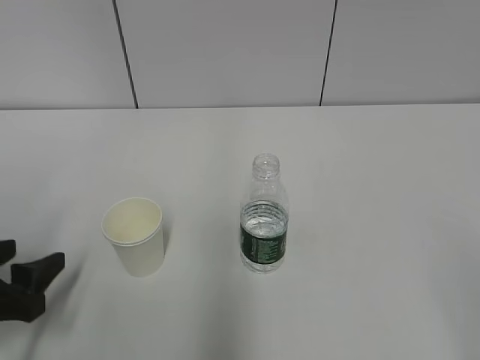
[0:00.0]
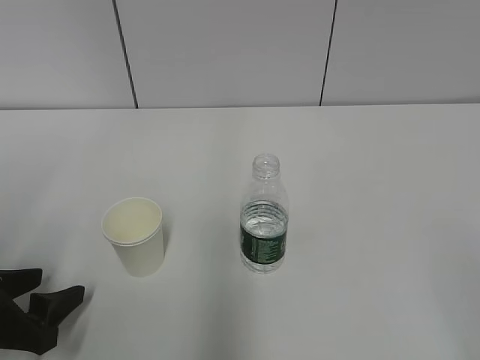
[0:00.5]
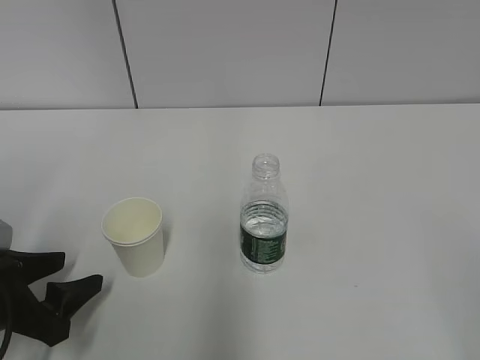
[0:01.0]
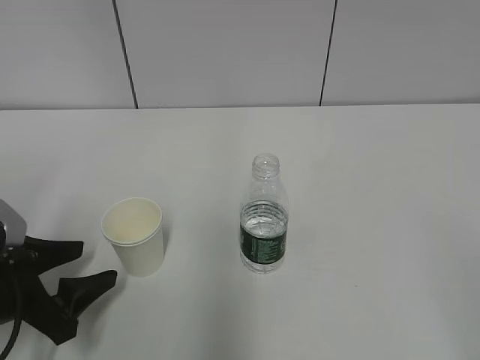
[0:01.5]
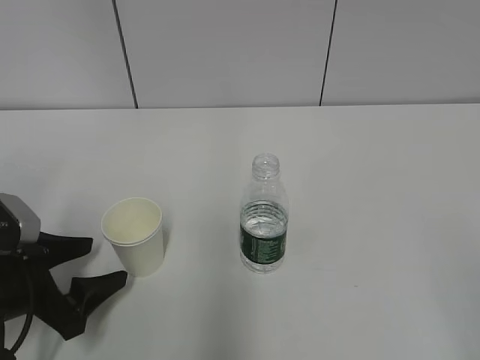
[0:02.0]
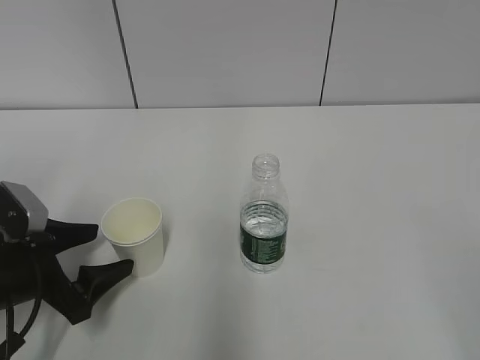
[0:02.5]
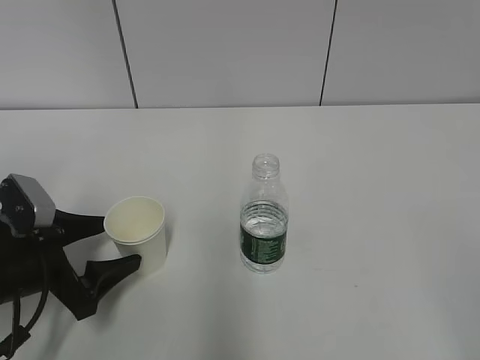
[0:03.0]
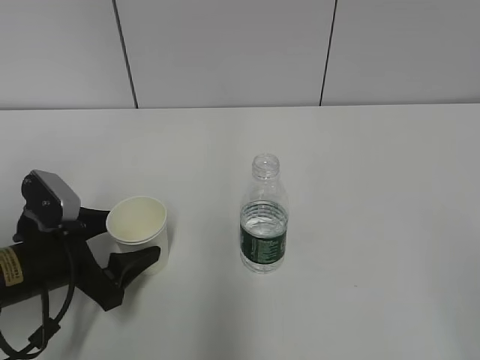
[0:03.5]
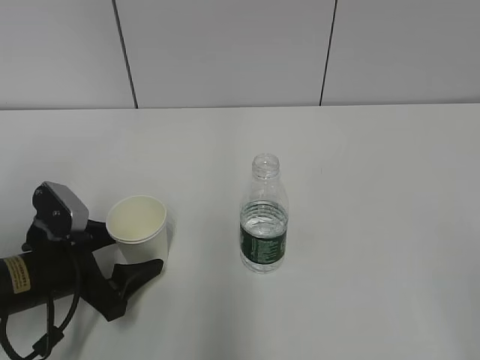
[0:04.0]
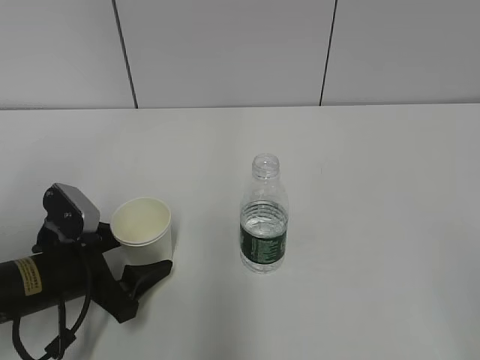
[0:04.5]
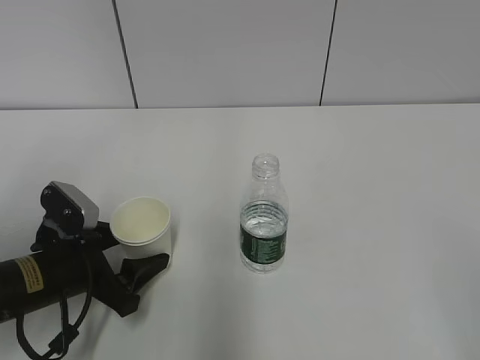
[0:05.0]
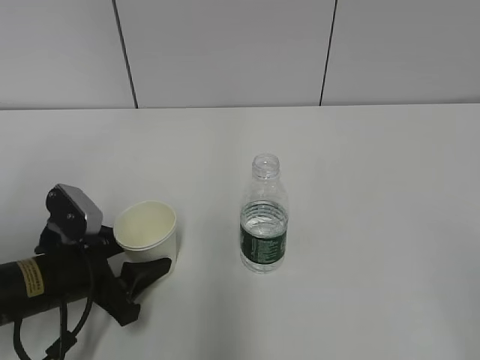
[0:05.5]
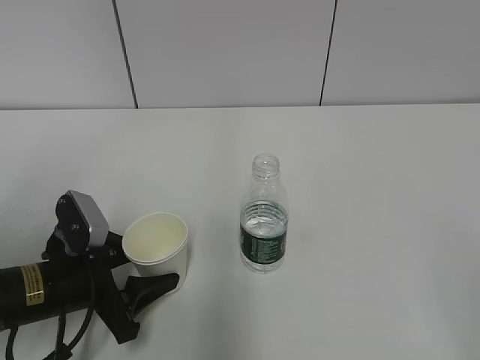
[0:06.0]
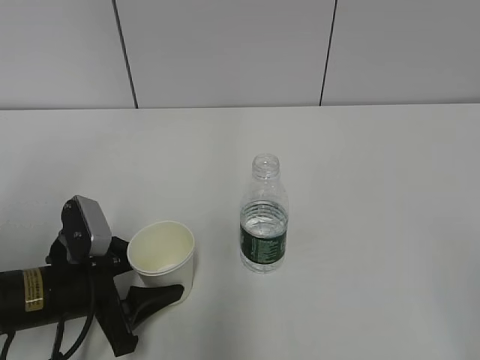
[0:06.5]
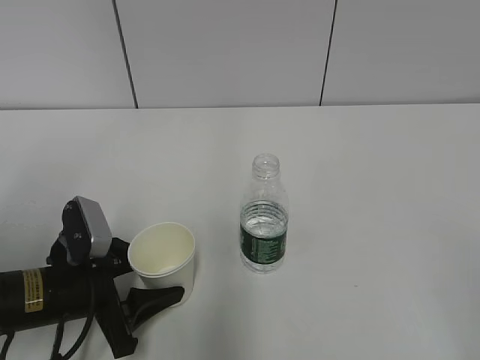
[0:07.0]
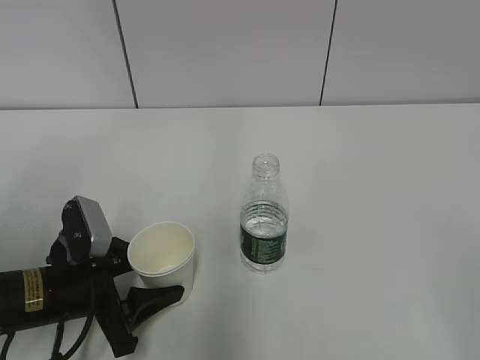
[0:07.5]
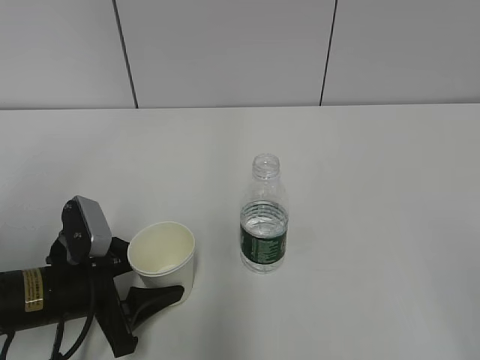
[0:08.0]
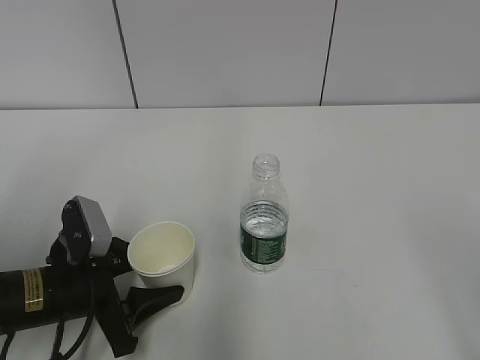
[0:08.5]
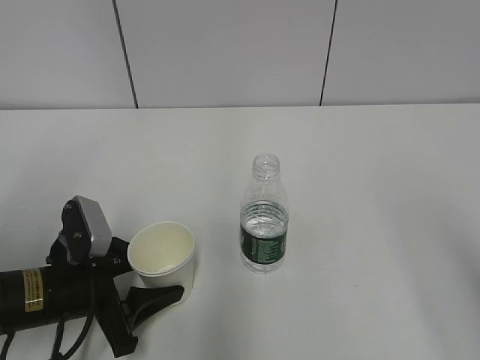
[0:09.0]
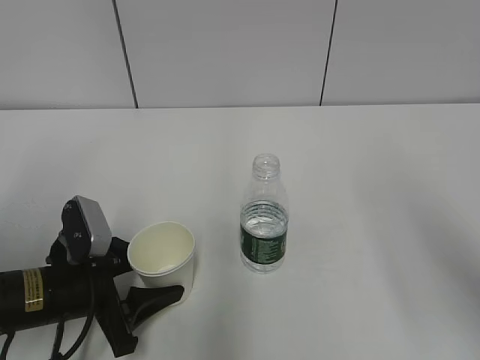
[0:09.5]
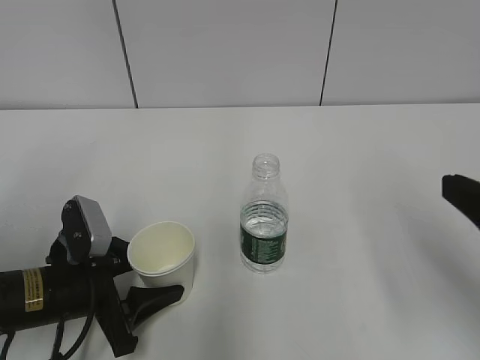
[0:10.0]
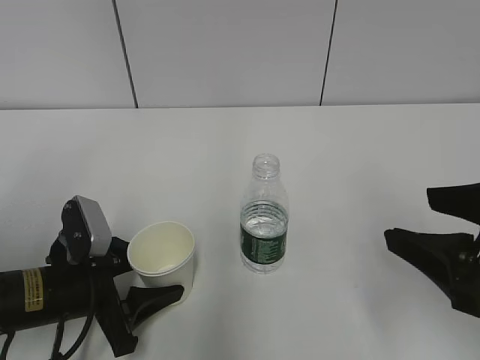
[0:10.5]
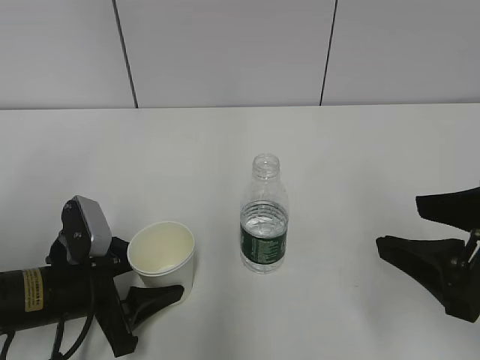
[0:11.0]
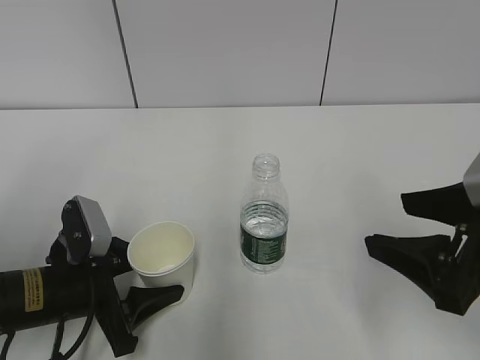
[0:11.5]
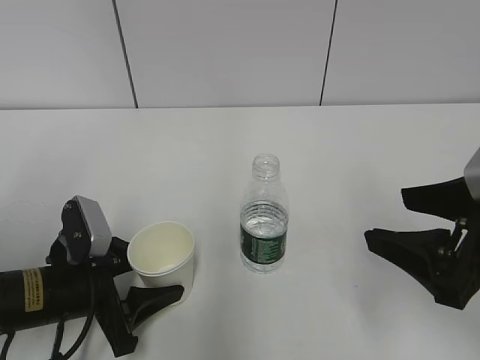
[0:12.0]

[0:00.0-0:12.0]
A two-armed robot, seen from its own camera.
Step, 0:00.0 to 0:03.5: Grab the paper cup with the left hand.
0:00.0 to 0:02.0: The left gripper ends up approximately 5 cm from where it was.
0:02.0 to 0:04.0: The grippers stay close to where they were, moving slightly.
0:04.0 to 0:06.0: The left gripper closes.
0:06.0 to 0:08.0: There are only small adjustments of the grippers.
0:08.0 to 0:10.0: The right gripper is displaced forward by approximately 15 cm.
0:10.0 to 0:12.0: The right gripper shifts by about 5 cm.

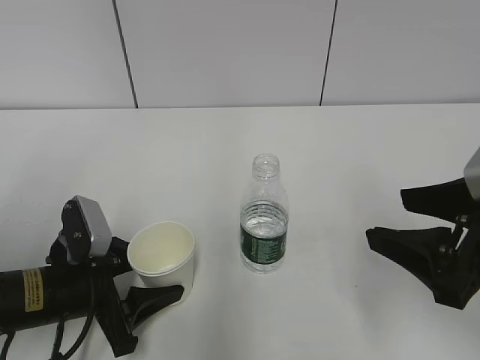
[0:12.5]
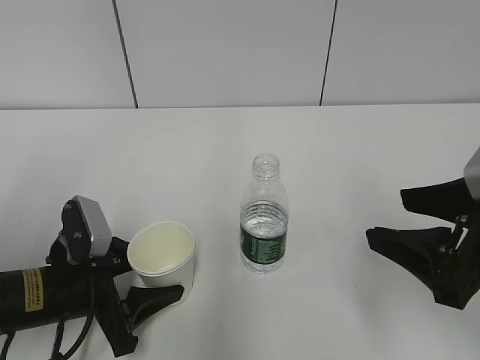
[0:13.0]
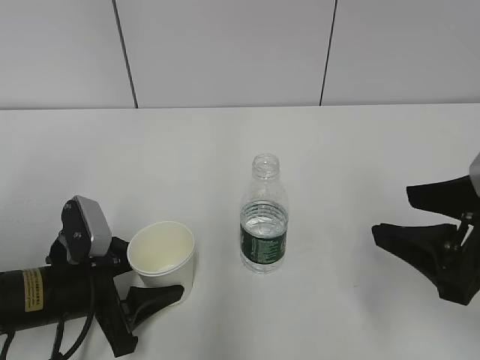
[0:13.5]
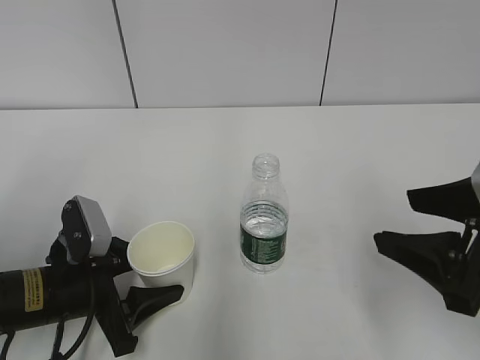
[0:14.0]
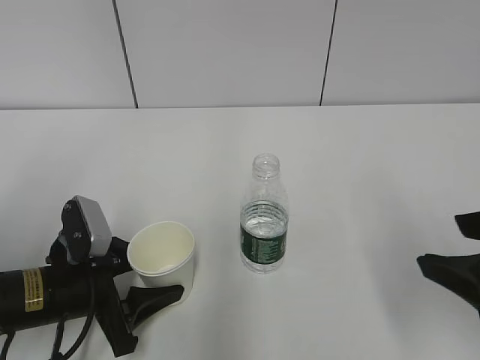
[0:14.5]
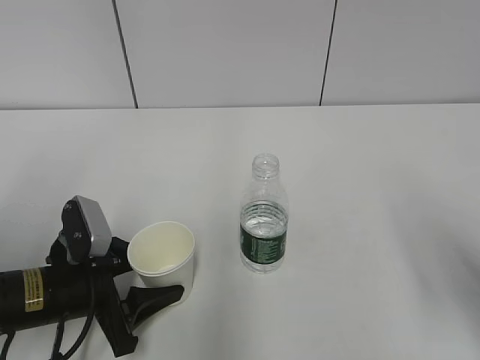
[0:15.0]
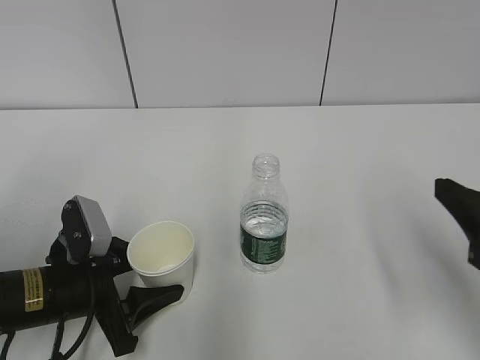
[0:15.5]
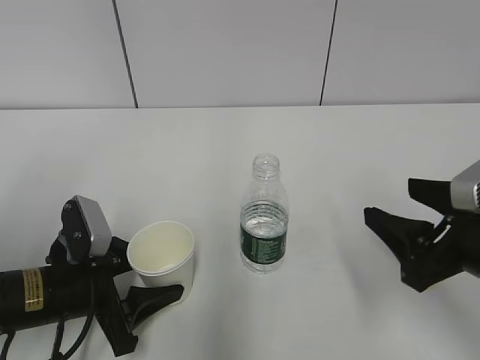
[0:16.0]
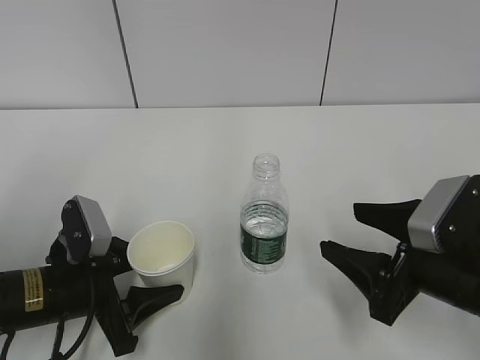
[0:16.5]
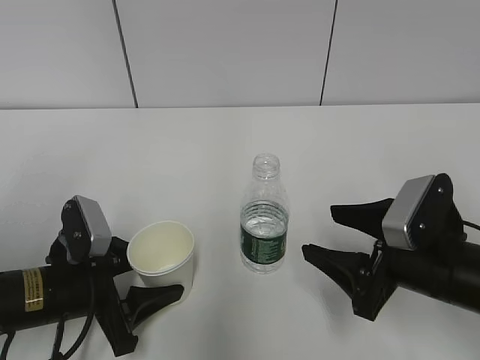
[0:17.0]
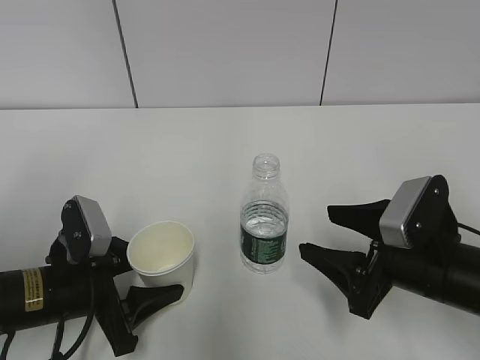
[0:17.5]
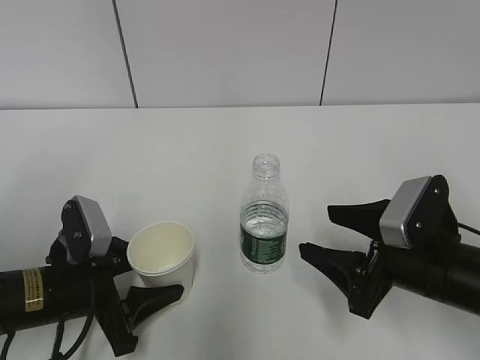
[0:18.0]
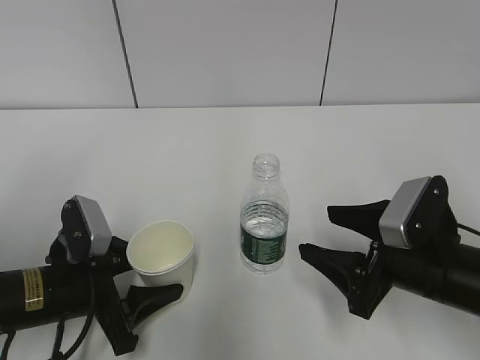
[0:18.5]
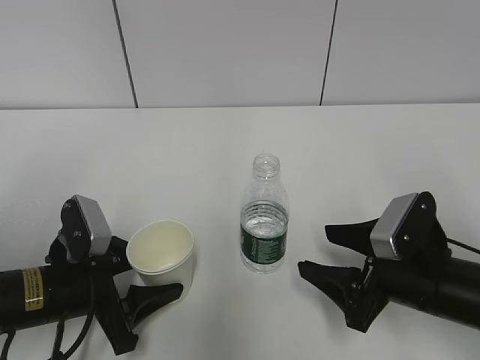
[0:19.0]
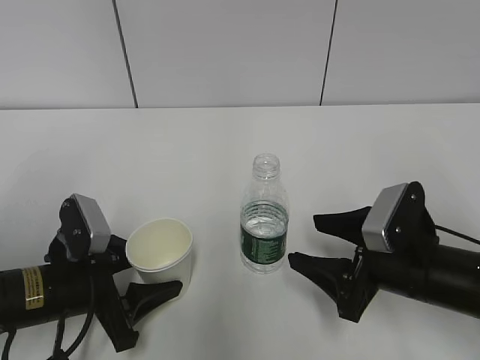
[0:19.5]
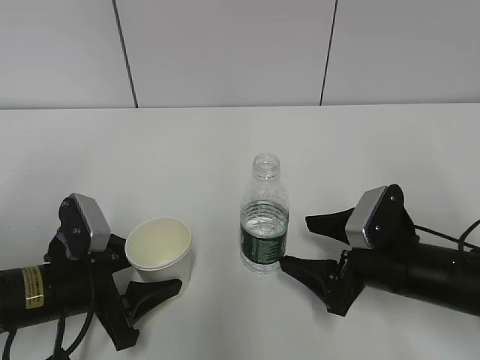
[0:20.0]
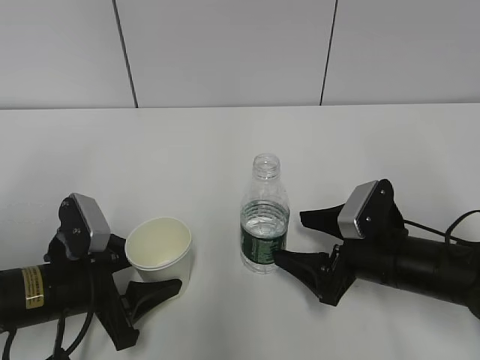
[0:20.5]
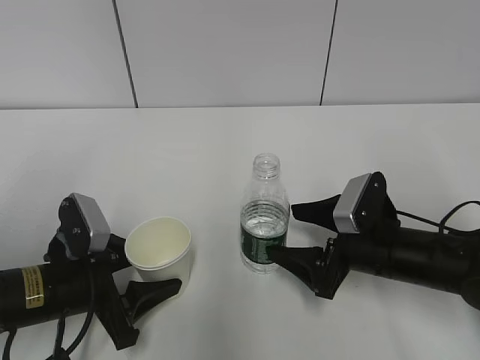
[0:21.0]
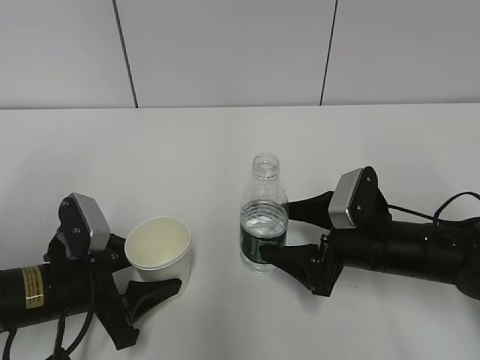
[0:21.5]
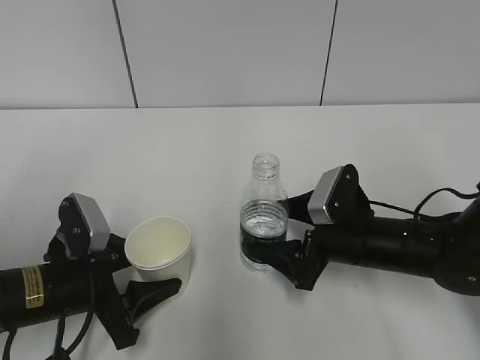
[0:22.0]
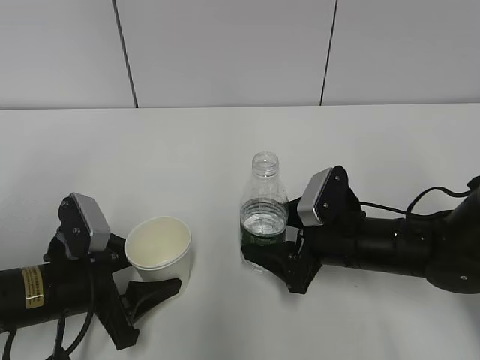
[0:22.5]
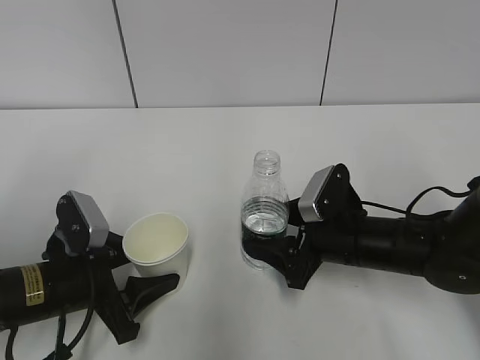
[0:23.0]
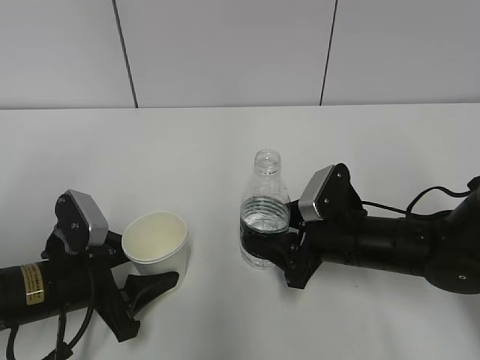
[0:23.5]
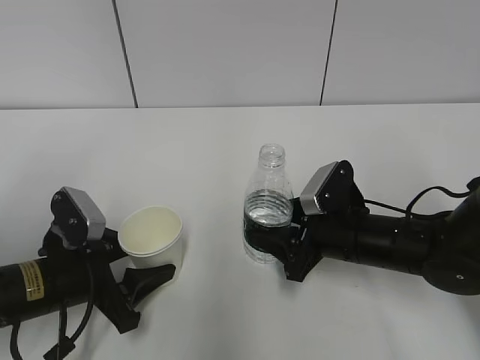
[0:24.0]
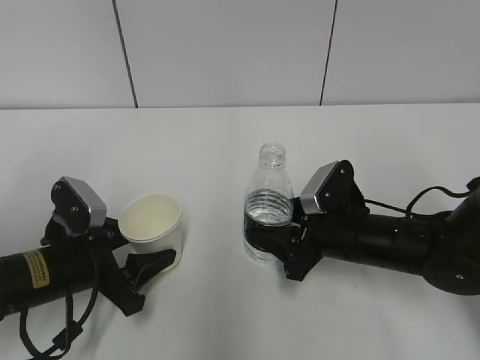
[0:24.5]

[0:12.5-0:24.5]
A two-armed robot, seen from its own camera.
Step, 0:12.5 to 0:18.0: Grab the water bottle with the right hand.
0:12.5 to 0:14.5: There are only small adjustments of the grippers.
0:14.5 to 0:16.5: The right gripper is displaced downward by roughly 10 cm.
0:16.5 to 0:18.5: The grippers stay close to where they were, moving slightly.
0:18.5 to 0:20.5: The right gripper shifts by approximately 5 cm, and opens.
0:20.5 to 0:22.5: The grippers stay close to where they were, moving slightly.
0:22.5 to 0:24.5: The right gripper closes.

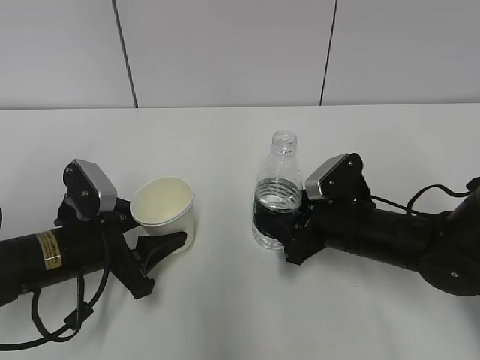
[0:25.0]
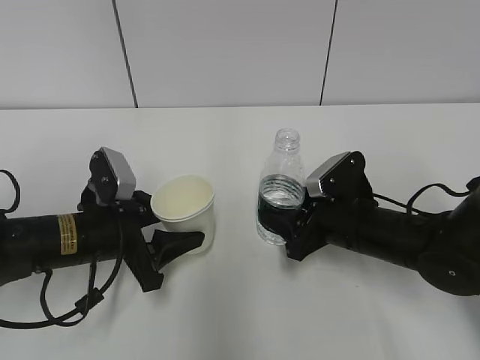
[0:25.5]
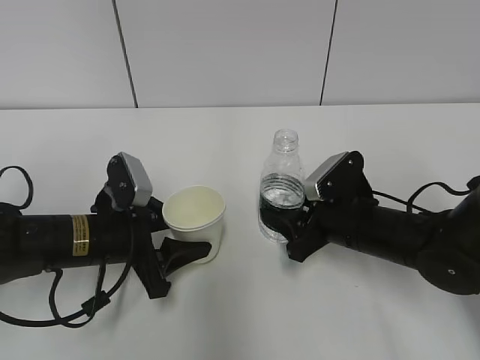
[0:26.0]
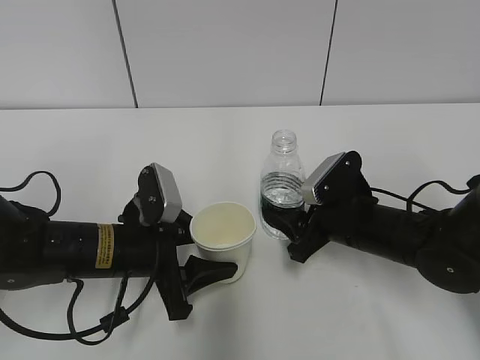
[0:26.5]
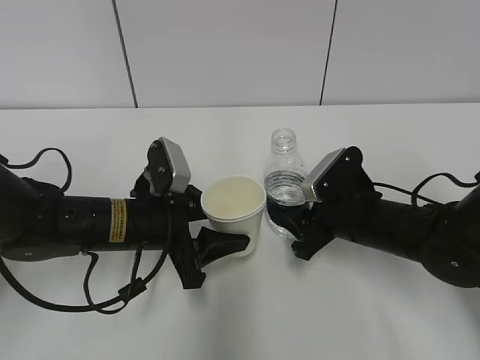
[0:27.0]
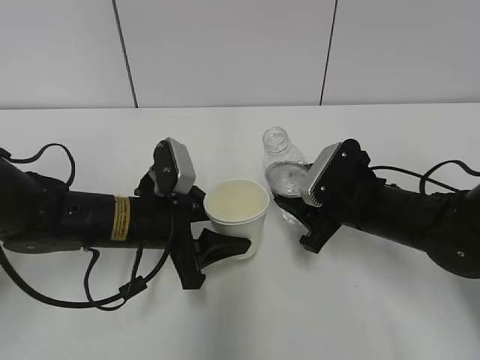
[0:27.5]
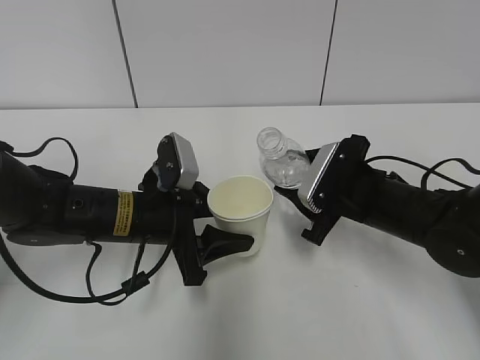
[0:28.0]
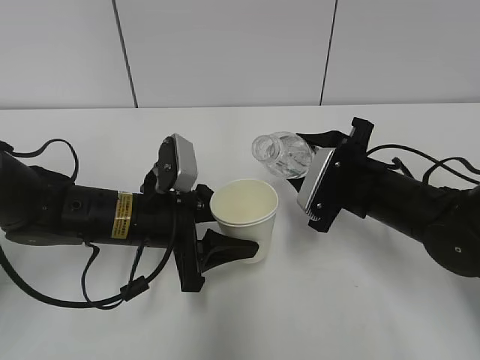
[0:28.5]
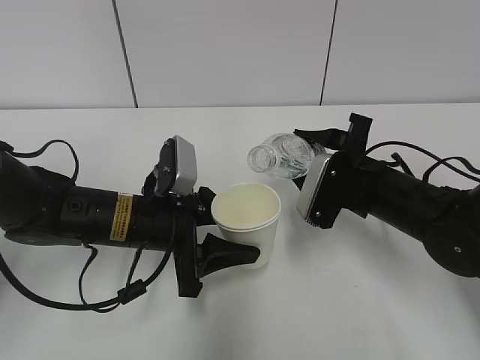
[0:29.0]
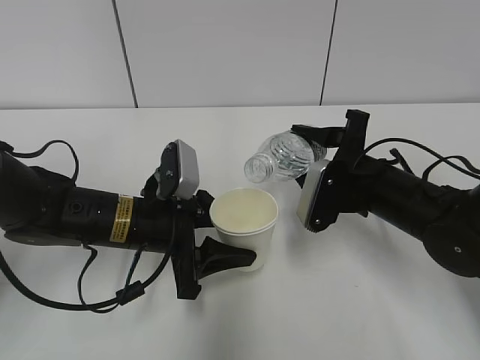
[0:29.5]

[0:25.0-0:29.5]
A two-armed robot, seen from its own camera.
0:25.0 to 0:27.0: The left gripper goes approximately 5 cm to the right.
